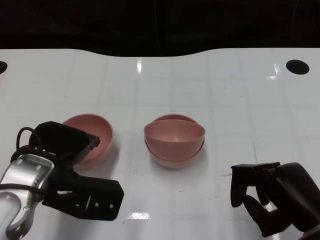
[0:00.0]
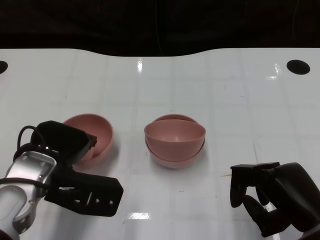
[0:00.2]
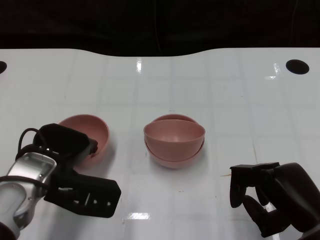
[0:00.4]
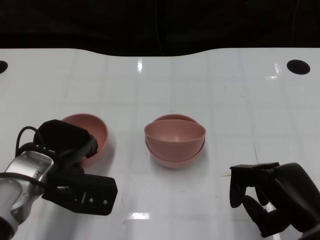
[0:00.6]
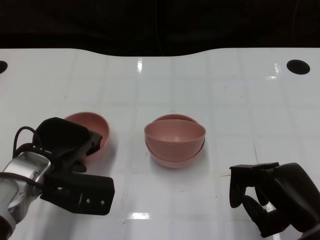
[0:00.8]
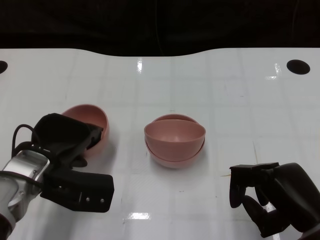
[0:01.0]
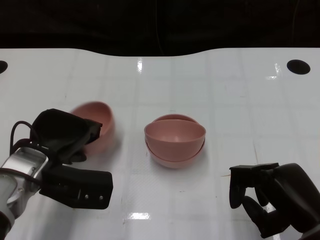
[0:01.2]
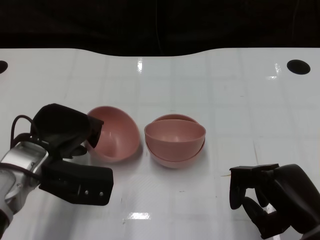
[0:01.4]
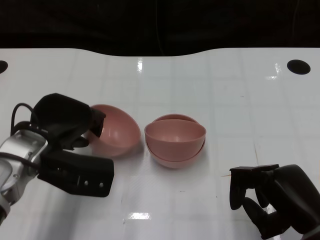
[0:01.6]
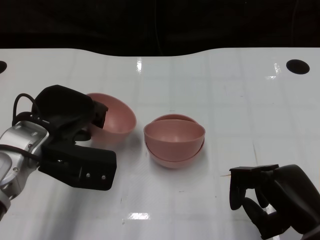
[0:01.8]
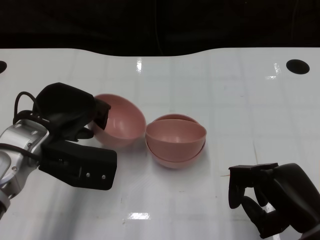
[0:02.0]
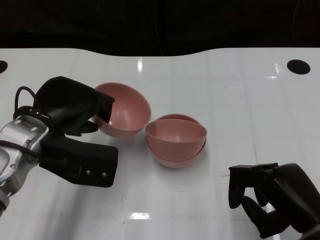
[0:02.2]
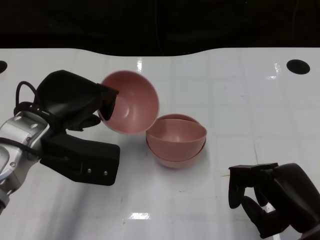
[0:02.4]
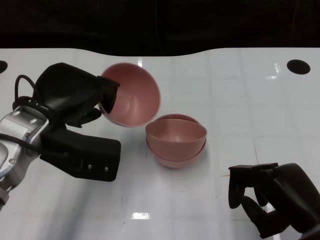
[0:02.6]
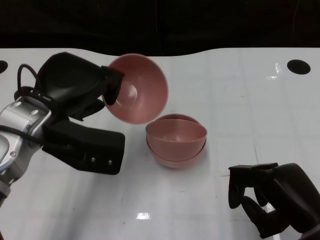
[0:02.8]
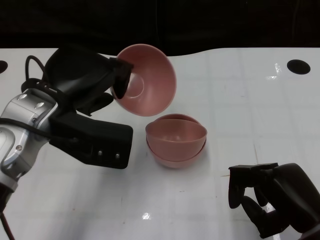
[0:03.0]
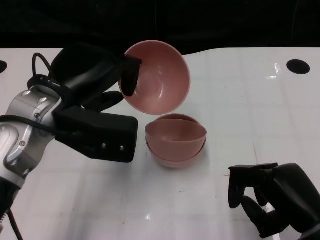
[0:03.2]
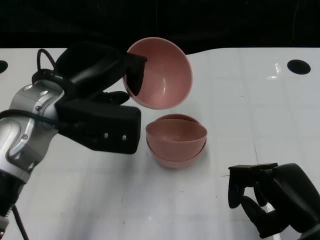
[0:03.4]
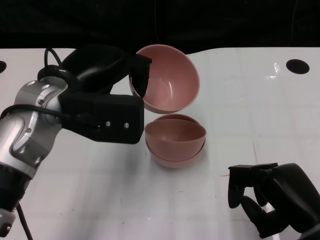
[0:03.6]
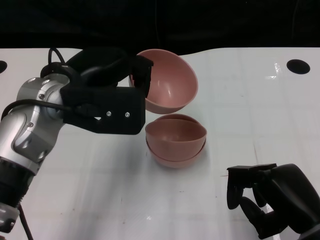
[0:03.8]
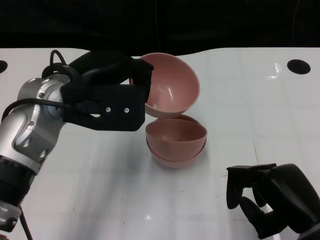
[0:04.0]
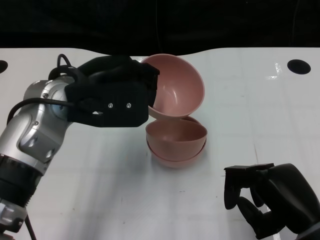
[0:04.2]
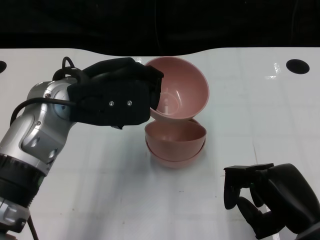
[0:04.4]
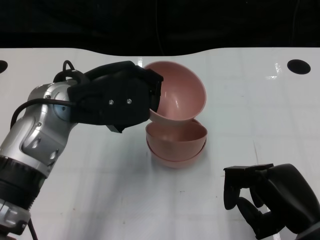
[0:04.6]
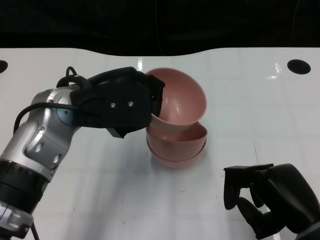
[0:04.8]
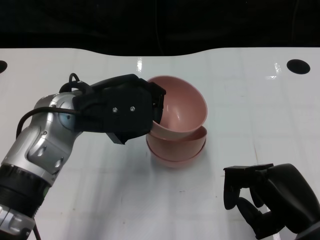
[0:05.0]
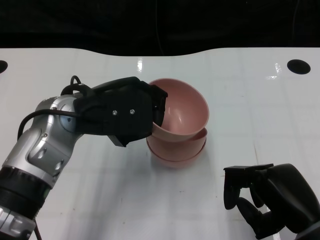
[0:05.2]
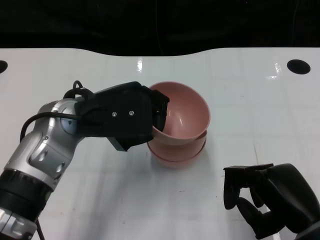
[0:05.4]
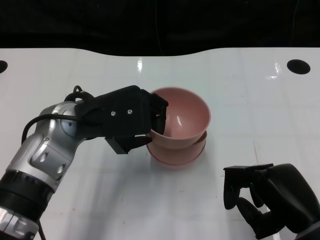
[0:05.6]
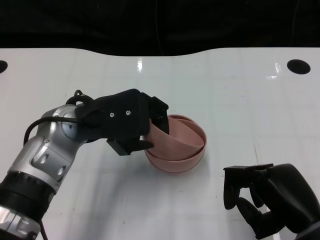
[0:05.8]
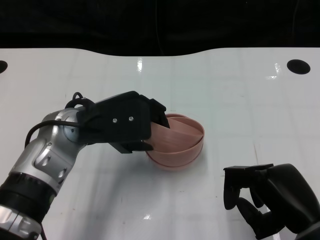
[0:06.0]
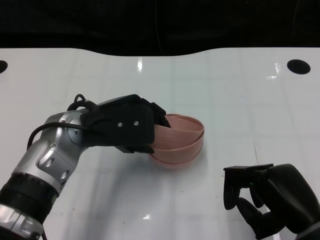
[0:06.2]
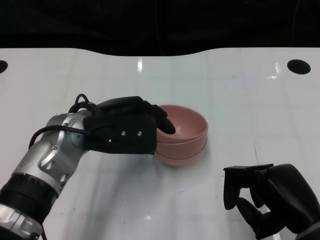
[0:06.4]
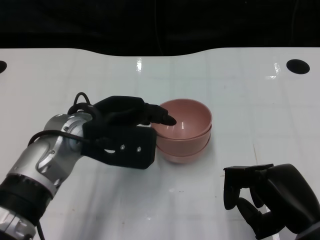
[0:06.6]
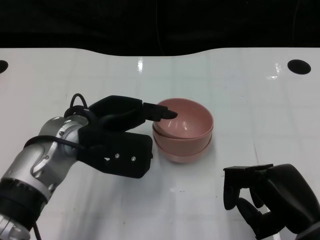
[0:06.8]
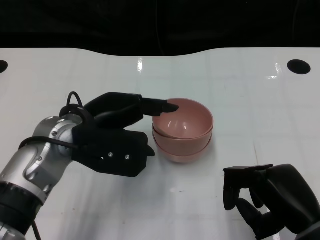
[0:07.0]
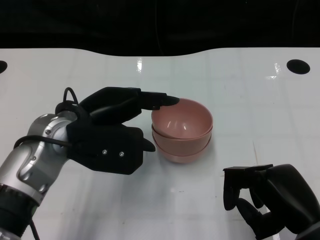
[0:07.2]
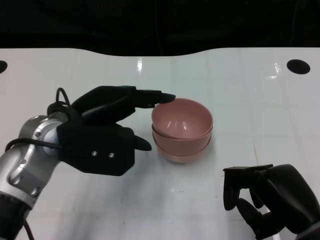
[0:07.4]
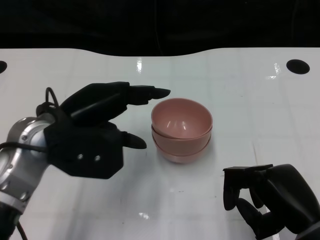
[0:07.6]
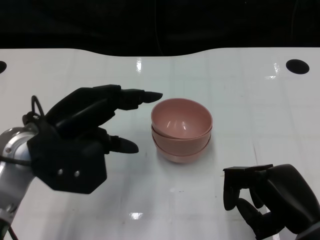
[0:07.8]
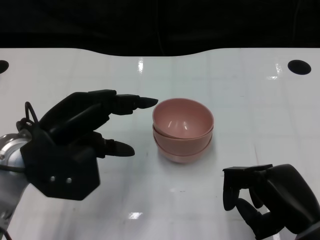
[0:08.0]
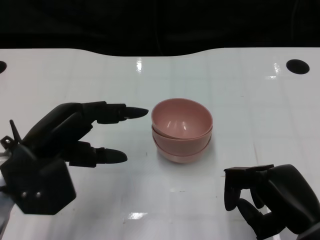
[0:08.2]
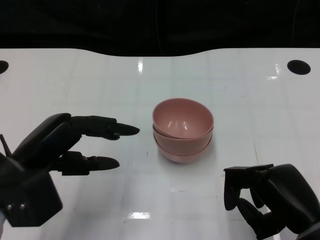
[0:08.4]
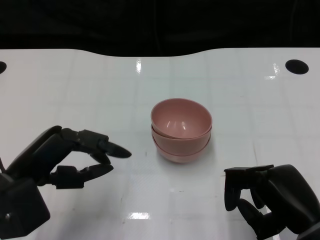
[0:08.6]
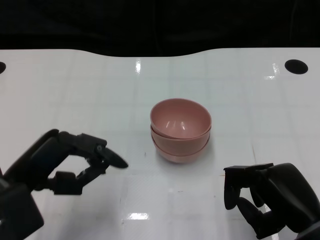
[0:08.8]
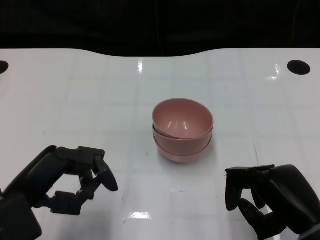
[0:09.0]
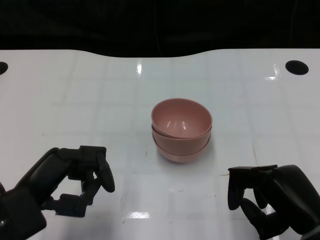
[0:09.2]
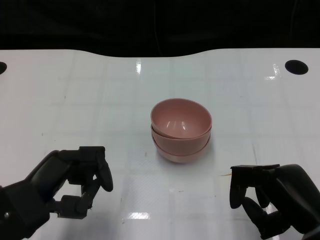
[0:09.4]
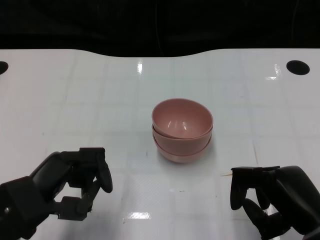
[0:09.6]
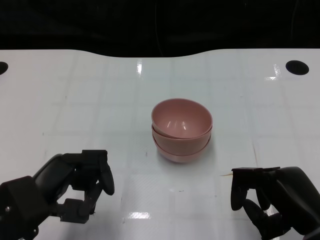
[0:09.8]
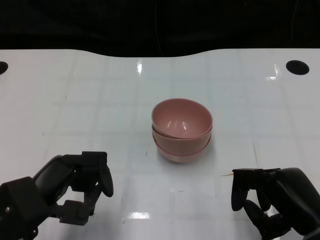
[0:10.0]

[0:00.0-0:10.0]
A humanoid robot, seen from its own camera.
Task of the whole recording: Pick up the bowl on one side of the table and place it on top of the middle bowl, then pick up the bowl on the other side of the table and place it on top of the middle bowls.
Step, 0:01.4 to 0:07.6: Place the bowl on the left onto the bowl in the middle with left gripper.
0:00.0 to 0:01.4: There are only small adjustments of the hands.
0:01.4 to 0:02.8: The left hand shifts approximately 10 cm upward.
0:05.8 to 0:07.2: The hands make only small movements.
0:07.2 to 0:08.6: The left hand travels to the left and backward by some 10 cm.
